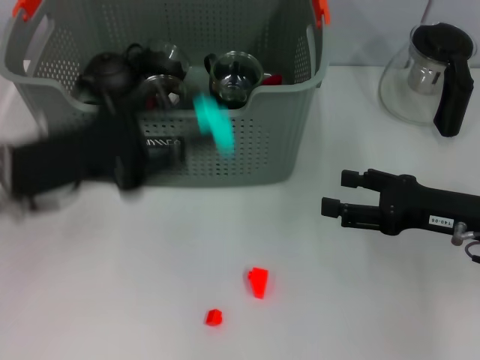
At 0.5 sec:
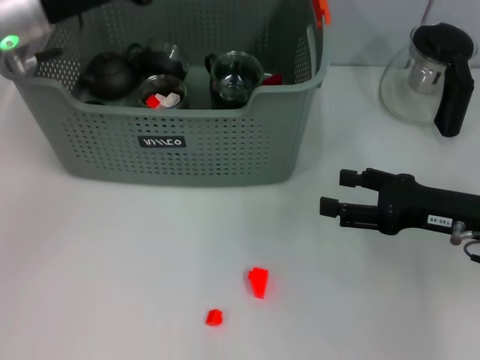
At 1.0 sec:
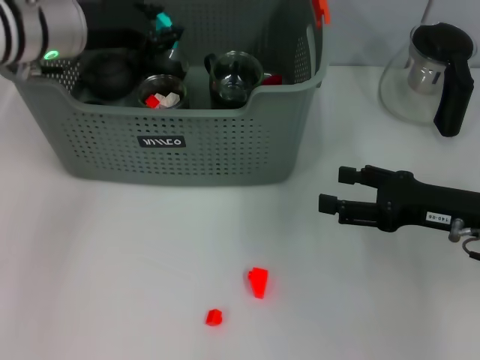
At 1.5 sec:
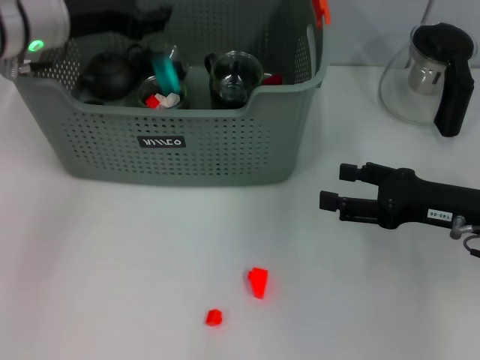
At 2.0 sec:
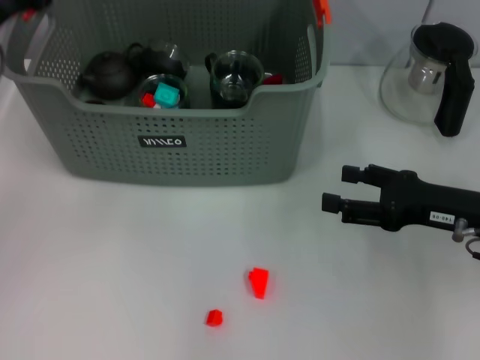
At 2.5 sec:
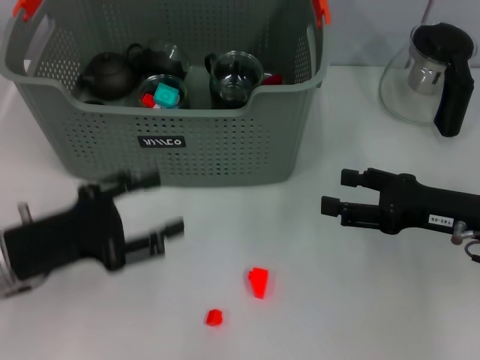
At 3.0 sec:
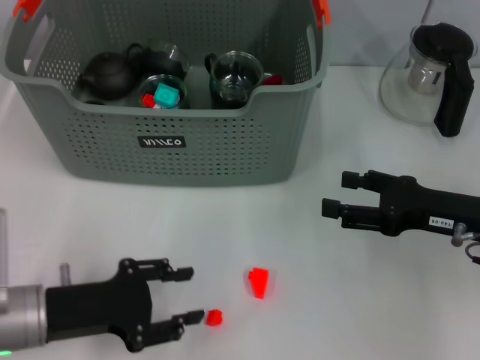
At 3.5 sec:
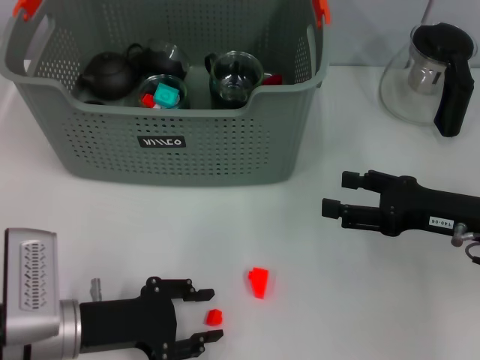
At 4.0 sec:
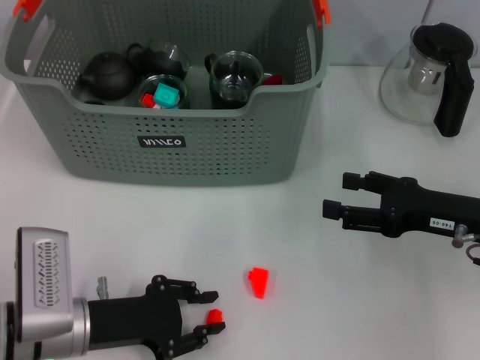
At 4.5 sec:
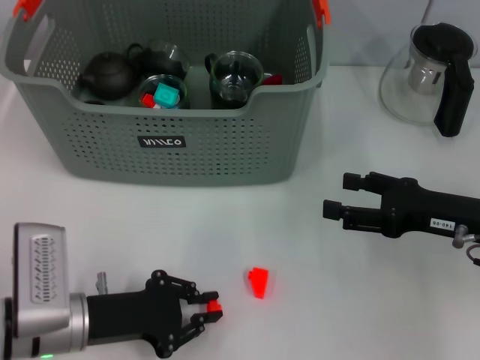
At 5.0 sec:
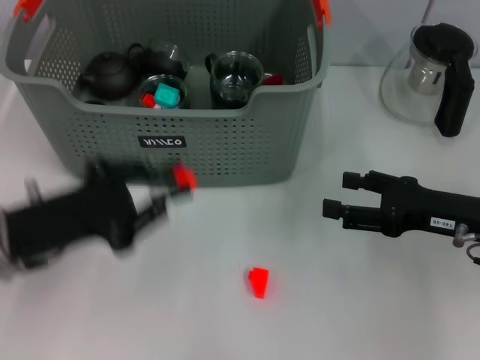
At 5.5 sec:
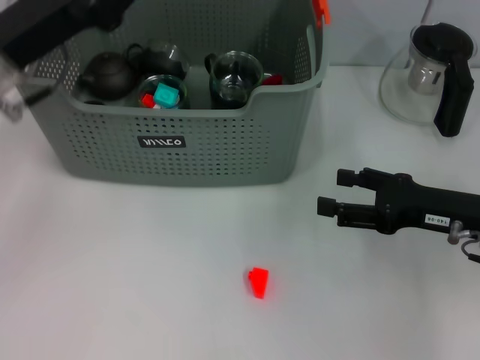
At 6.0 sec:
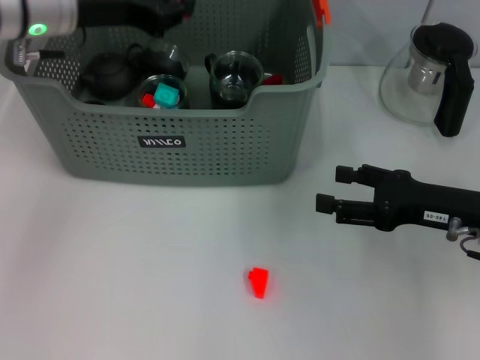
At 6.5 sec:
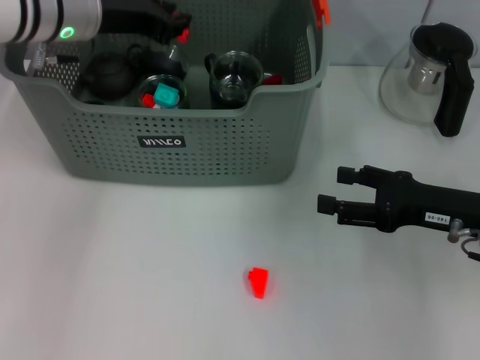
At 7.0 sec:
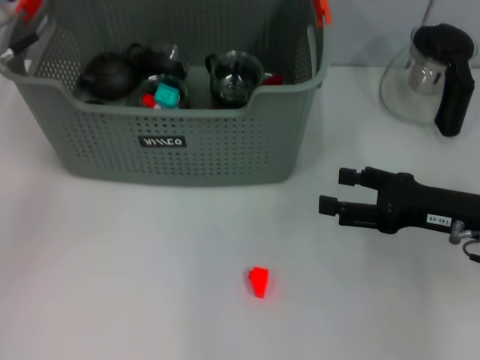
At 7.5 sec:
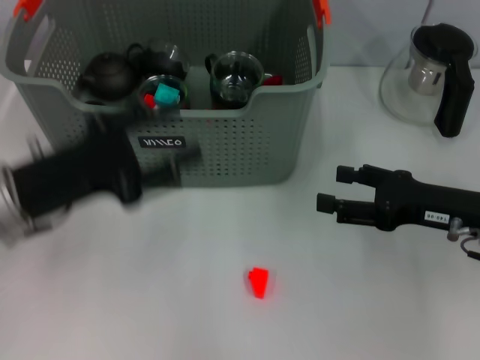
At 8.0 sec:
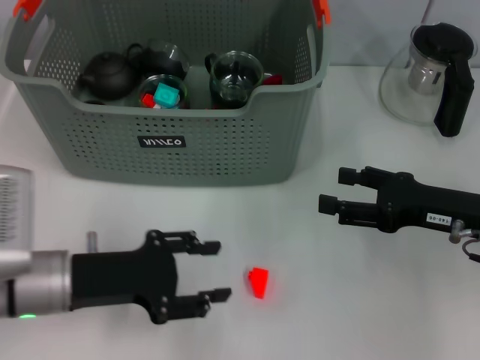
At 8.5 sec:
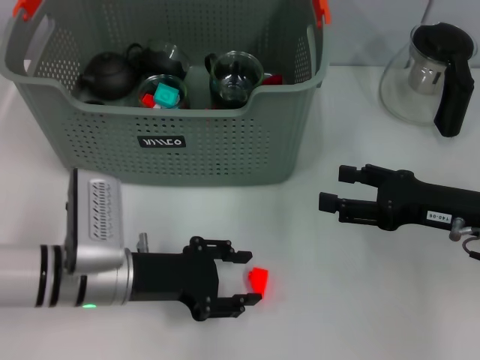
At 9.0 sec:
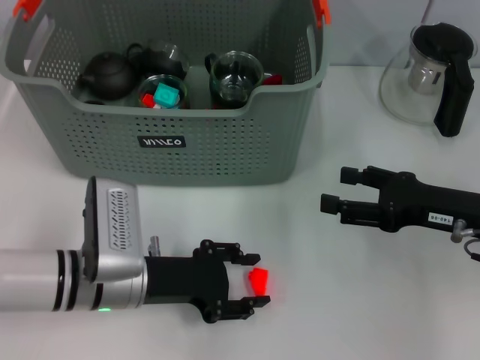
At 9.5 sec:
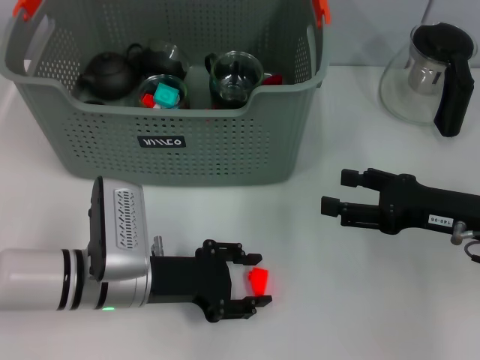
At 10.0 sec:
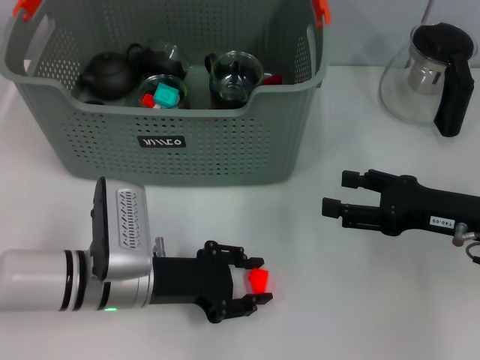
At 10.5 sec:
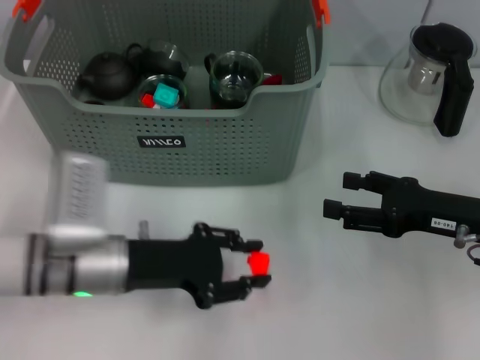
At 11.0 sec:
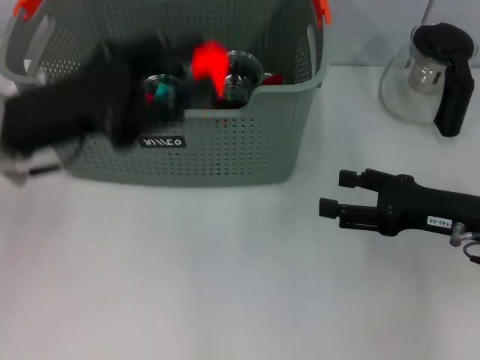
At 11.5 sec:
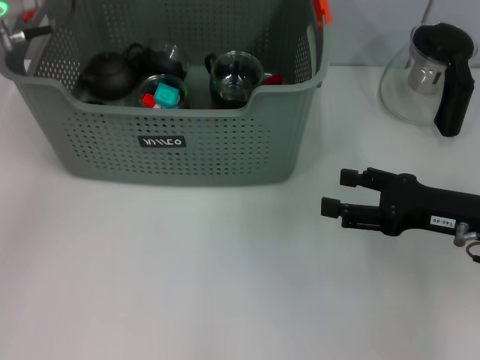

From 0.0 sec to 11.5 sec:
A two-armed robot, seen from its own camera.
Task of the whole recording: pick up the teacup on the table and place it into the storage bin, pick up the block on the table and place it into the storage bin.
Step, from 0.0 sec to 1.5 sec: Place the light blue block in the storage box with left gripper.
Step, from 2.0 sec to 4.0 sec: Grasp the orange block with left gripper.
Step, from 4.5 sec to 6.5 sec: Place the orange block in the storage box with left gripper.
Step, from 7.0 sec to 10.0 sec: Grasp the orange block with left gripper.
From 0.0 sec to 2.0 sec: The left gripper heads upward, covering roughly 5 cm, goes forward and returns, approximately 15 cm each way, and opens up.
From 2.0 sec to 4.0 sec: The left gripper moves downward and backward, approximately 20 cm.
From 4.0 sec to 6.0 sec: The left gripper heads upward and forward, covering some 30 cm.
From 6.0 sec to 7.5 sec: The left gripper travels backward and downward by roughly 20 cm, and opens.
From 7.5 sec to 9.5 sec: The left gripper goes approximately 15 cm downward and to the right.
From 9.5 sec to 11.5 sec: The left gripper shifts approximately 25 cm upward and forward.

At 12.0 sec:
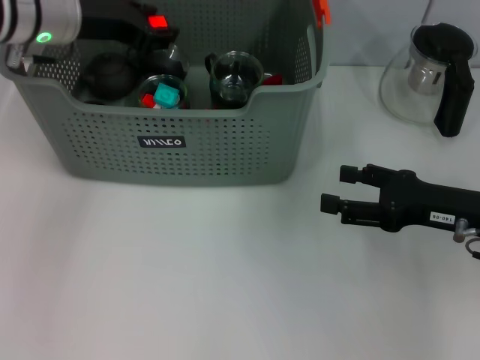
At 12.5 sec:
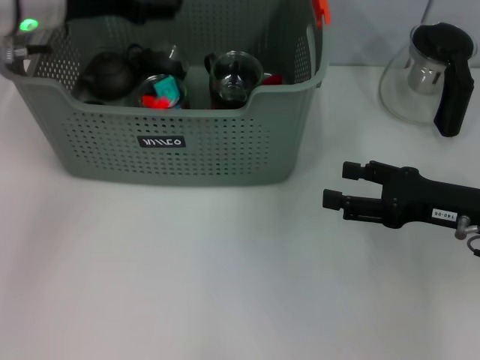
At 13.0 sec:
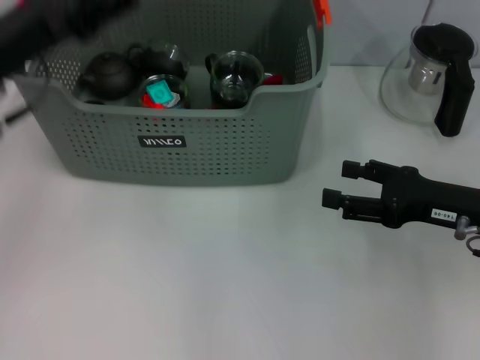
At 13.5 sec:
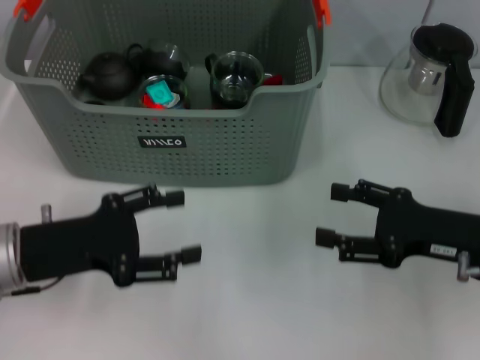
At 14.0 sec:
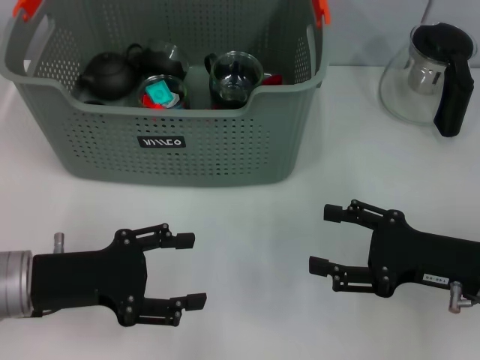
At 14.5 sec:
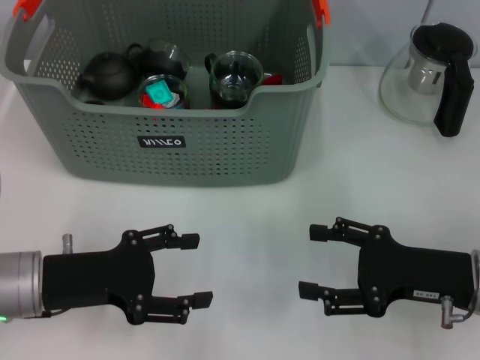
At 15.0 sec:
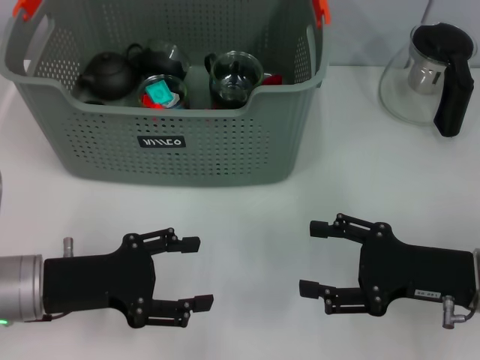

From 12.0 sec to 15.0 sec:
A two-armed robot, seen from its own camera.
Task of the whole recording: pick up the teacup on the table and place it into the storage bin, pick up the block on the table and place it into the storage bin.
From 12.0 sec to 13.5 sec: The left gripper goes about 20 cm backward and downward, and opens up.
